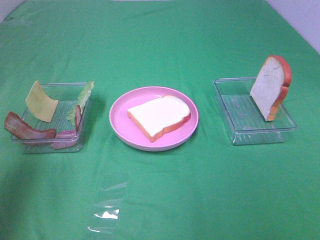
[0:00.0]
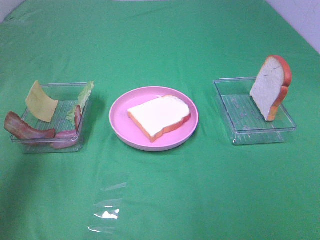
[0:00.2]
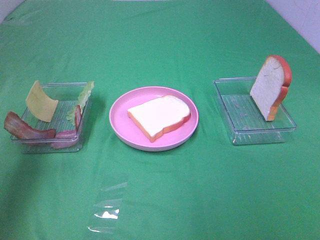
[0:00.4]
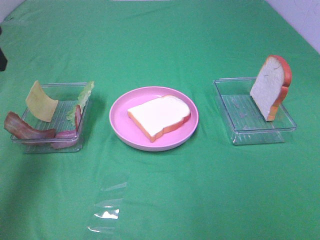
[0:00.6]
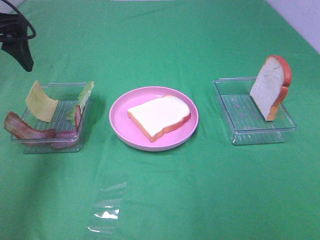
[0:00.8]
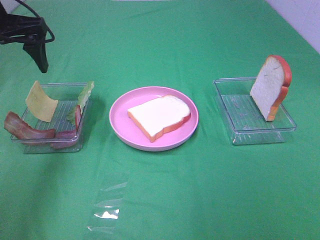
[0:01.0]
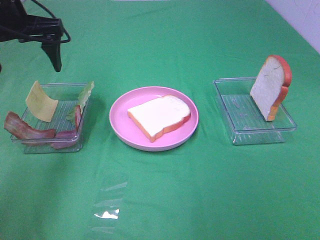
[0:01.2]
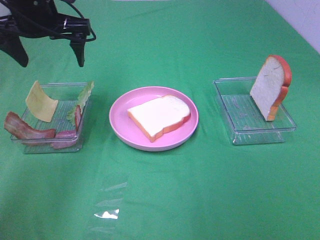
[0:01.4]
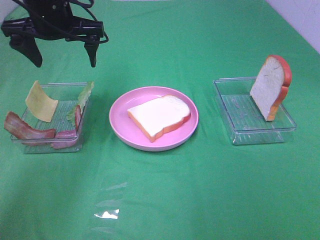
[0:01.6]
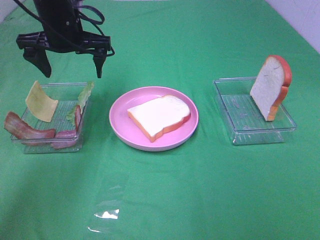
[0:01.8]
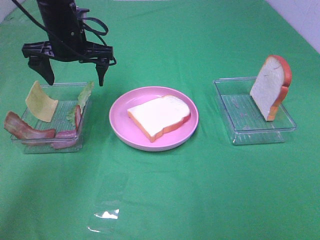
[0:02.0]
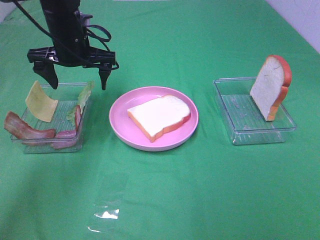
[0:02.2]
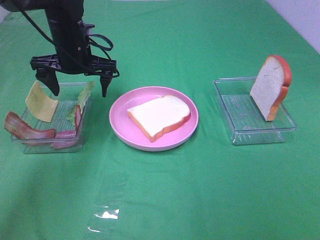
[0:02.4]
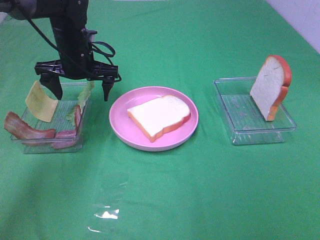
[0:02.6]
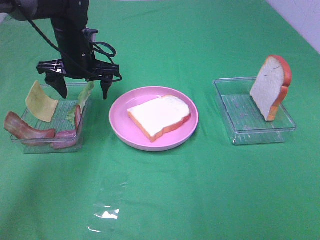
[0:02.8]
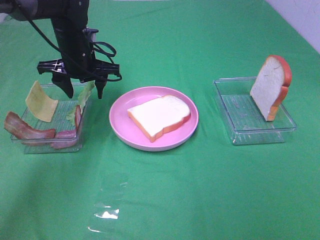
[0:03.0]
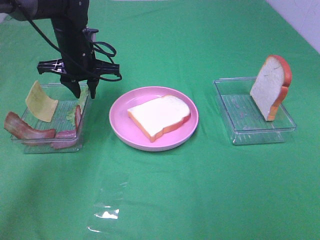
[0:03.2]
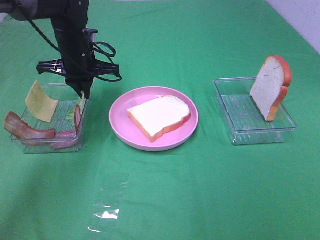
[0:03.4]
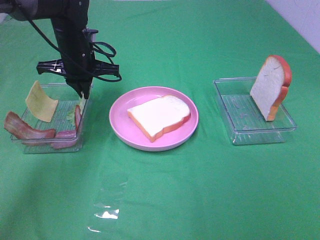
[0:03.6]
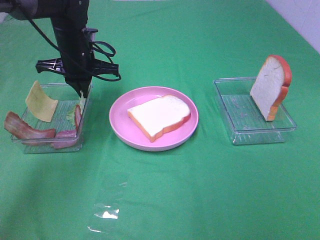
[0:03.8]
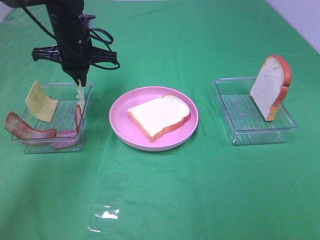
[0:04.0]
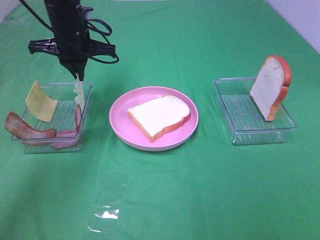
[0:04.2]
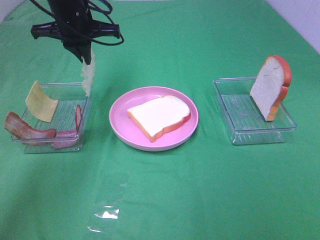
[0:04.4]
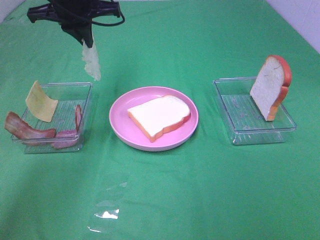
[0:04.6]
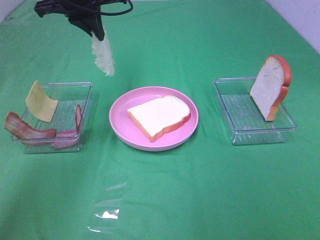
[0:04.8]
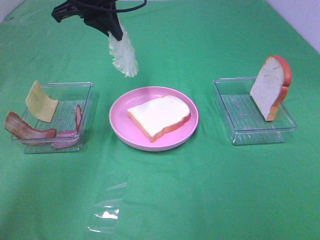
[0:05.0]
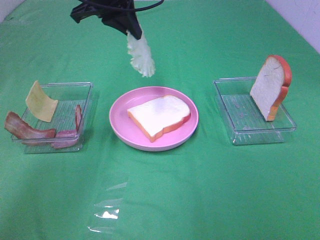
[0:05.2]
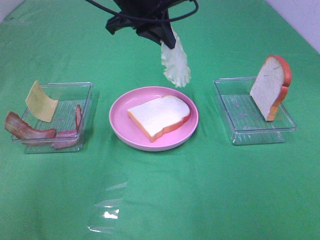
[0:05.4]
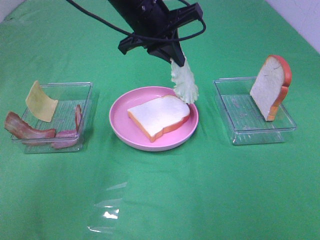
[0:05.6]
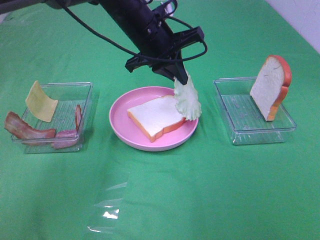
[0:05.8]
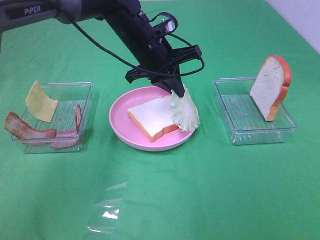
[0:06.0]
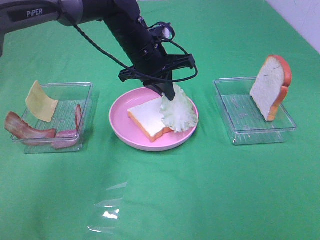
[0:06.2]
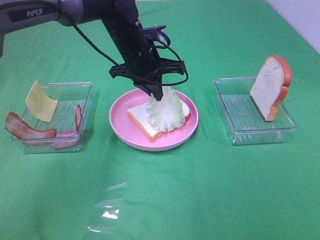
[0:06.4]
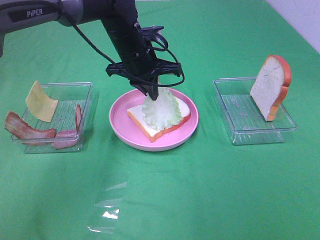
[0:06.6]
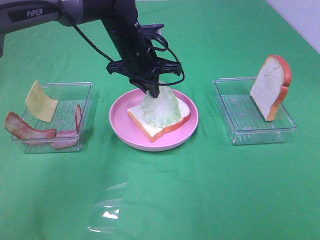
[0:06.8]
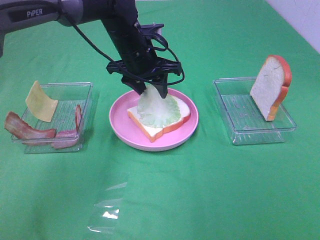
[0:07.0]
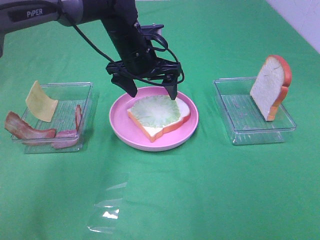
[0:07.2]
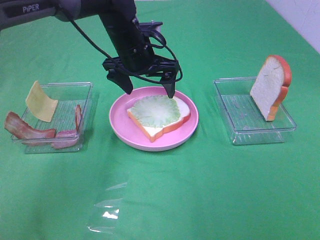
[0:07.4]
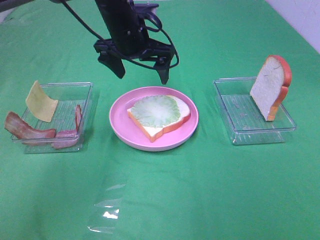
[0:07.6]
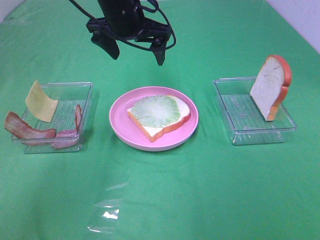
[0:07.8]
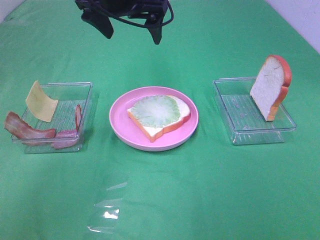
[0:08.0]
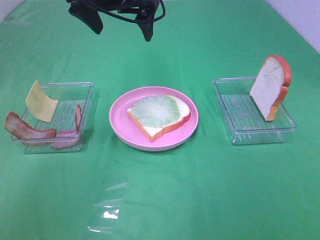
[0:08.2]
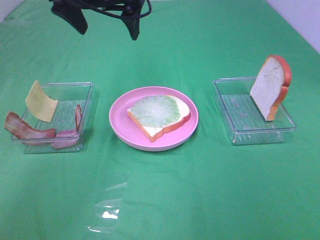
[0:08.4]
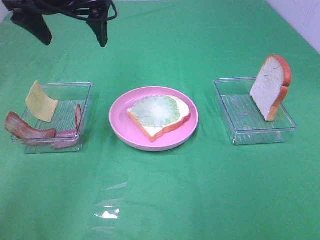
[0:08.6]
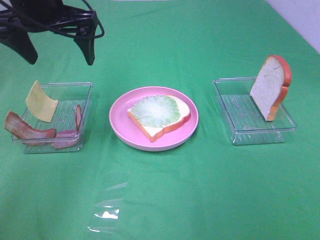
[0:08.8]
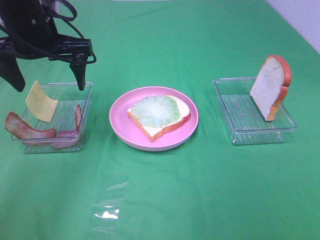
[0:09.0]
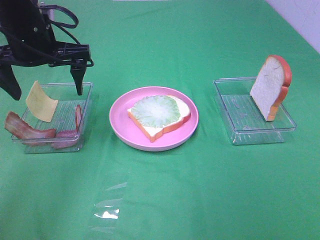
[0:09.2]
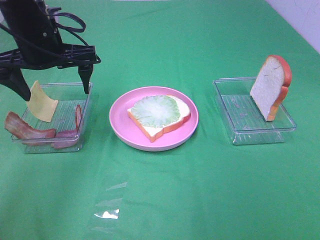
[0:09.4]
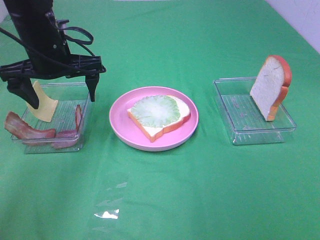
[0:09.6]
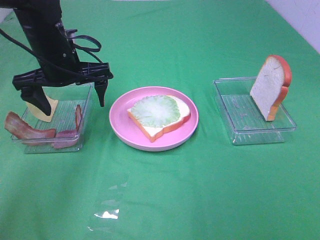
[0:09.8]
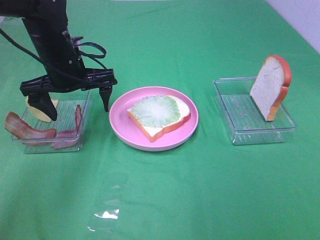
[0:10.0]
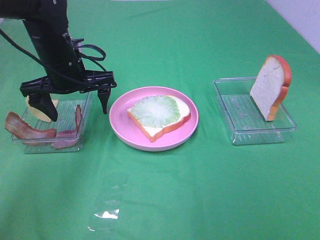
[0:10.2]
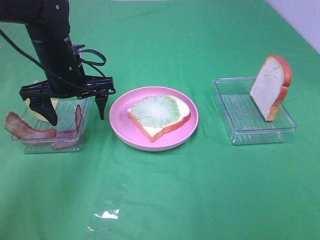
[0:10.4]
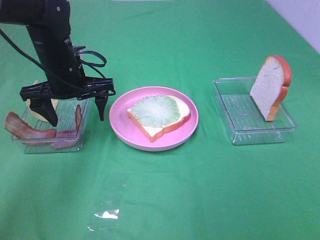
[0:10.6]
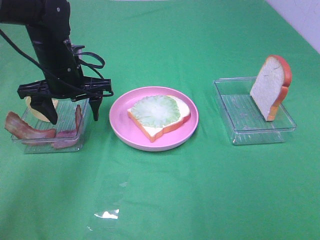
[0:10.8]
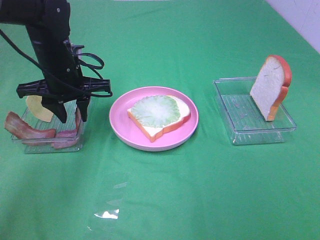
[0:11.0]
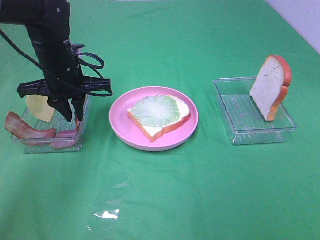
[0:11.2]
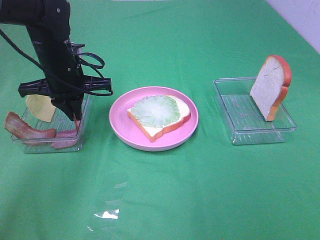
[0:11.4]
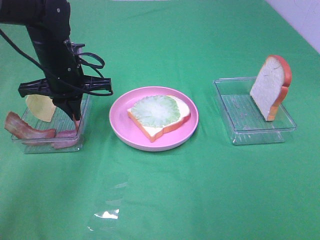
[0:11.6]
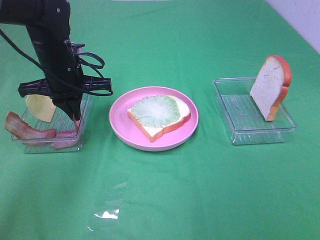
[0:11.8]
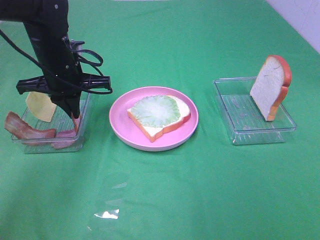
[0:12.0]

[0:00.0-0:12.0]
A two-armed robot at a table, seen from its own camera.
Task of the whole recording: Make sandwiches.
Step, 0.0 to 3.4 s: Left hand:grab the lettuce slice.
Step, 3.6 to 7.0 s: Left hand:place the lettuce slice on the bread slice.
Step, 7.2 to 11.4 s: Left hand:grab the bacon.
0.0 to 1.6 s: The left gripper shifts approximately 25 cm forward and to the right.
1.6 to 3.0 s: The left gripper moves downward, about 10 cm, and closes its fingers.
3.0 to 4.4 s: The left gripper travels upward by some 10 cm, and closes its fingers.
4.4 to 6.0 s: The left gripper shifts some 15 cm to the right and downward.
6.0 to 7.6 s: The left gripper changes place by some 5 cm, and opens up.
7.6 to 9.0 s: The left gripper moves to the left and backward, approximately 15 cm.
9.0 to 10.4 s: The left gripper shifts about 10 cm downward.
10.4 to 12.0 s: The left gripper closes up.

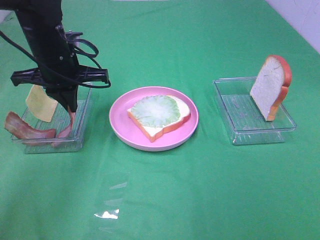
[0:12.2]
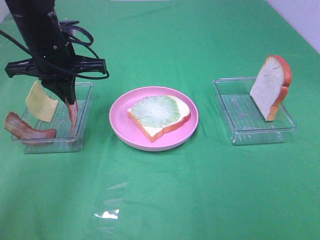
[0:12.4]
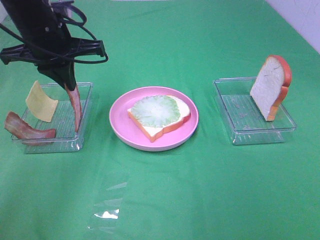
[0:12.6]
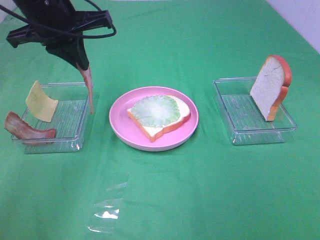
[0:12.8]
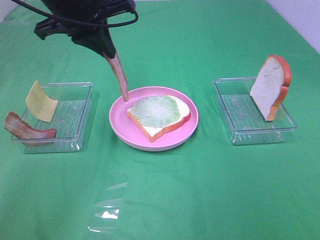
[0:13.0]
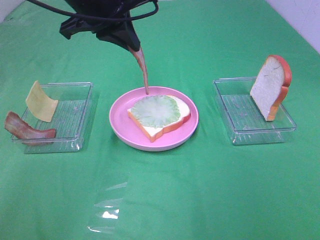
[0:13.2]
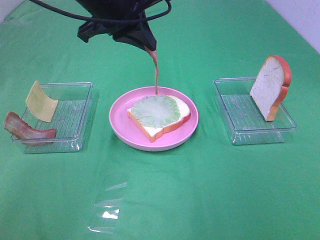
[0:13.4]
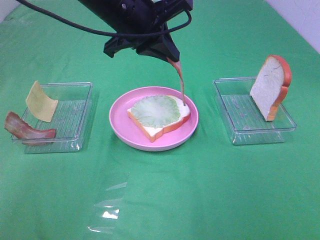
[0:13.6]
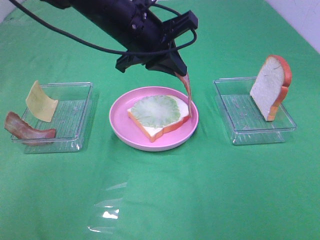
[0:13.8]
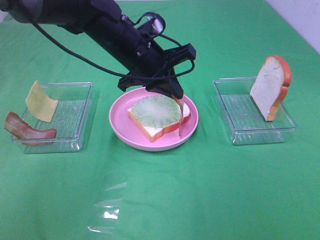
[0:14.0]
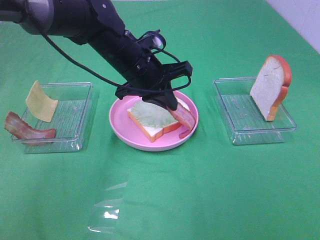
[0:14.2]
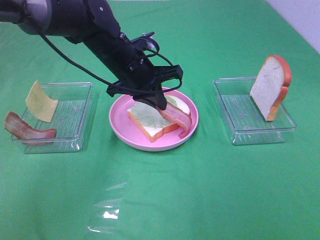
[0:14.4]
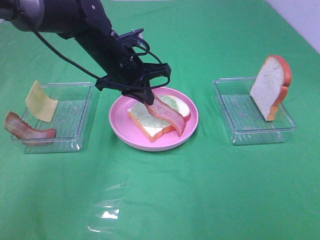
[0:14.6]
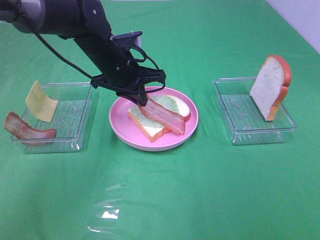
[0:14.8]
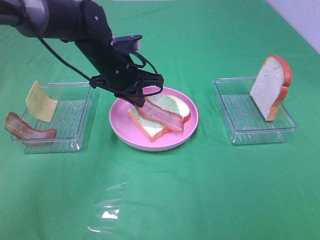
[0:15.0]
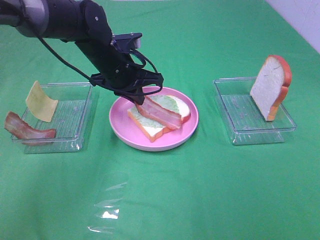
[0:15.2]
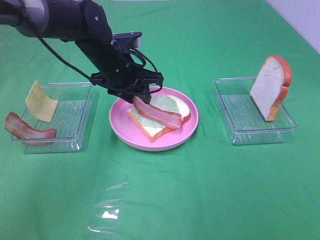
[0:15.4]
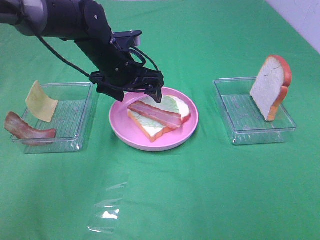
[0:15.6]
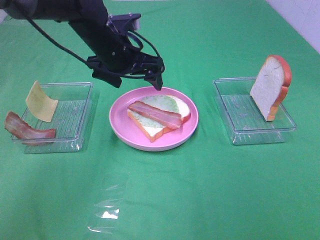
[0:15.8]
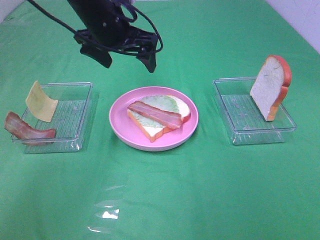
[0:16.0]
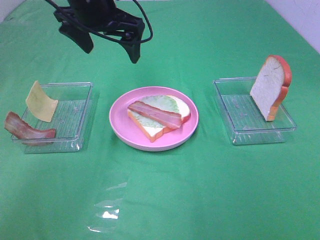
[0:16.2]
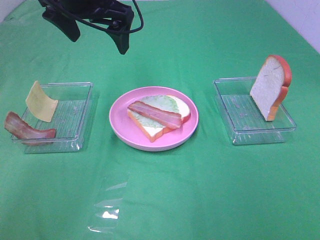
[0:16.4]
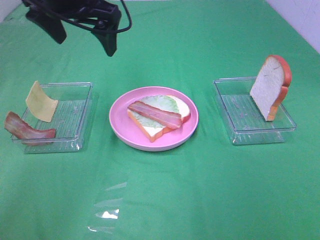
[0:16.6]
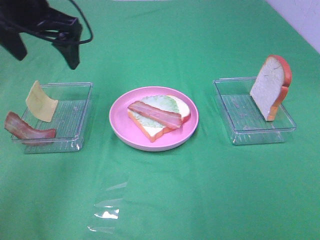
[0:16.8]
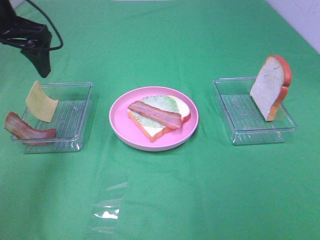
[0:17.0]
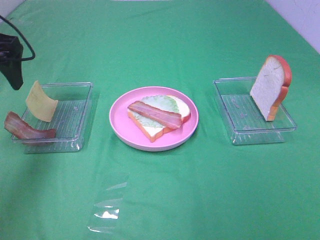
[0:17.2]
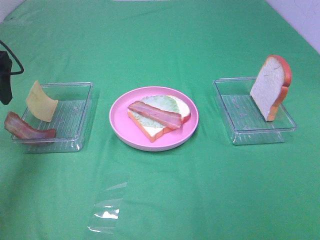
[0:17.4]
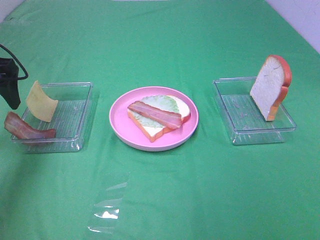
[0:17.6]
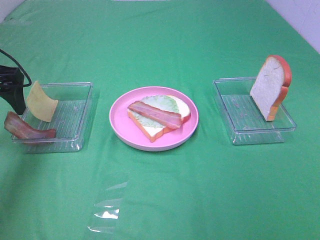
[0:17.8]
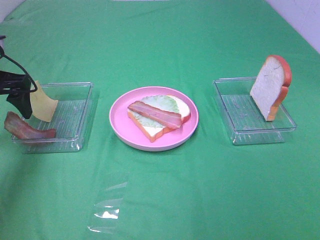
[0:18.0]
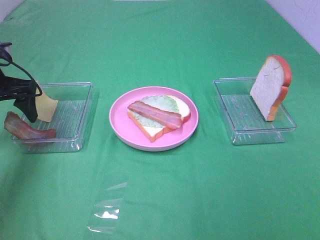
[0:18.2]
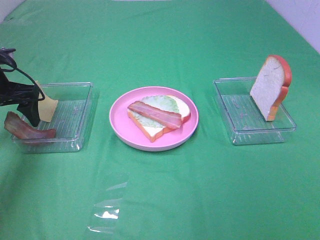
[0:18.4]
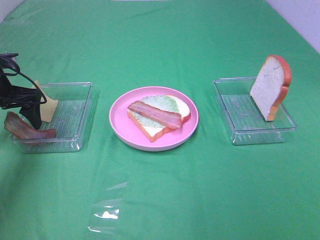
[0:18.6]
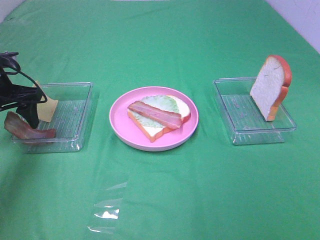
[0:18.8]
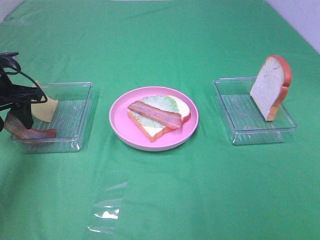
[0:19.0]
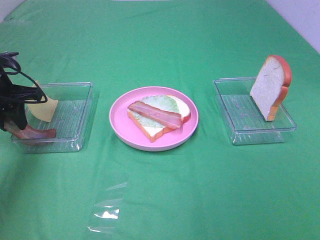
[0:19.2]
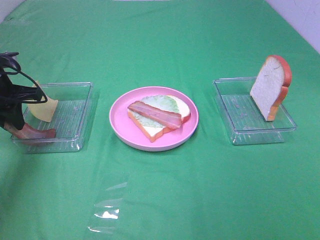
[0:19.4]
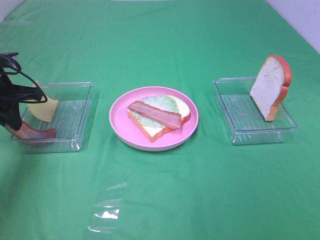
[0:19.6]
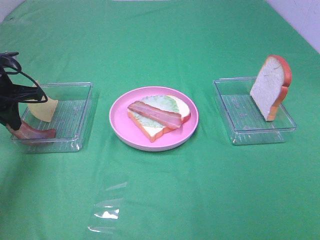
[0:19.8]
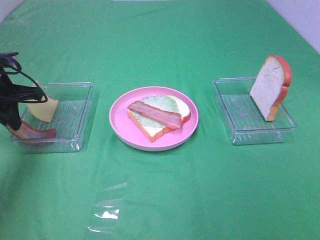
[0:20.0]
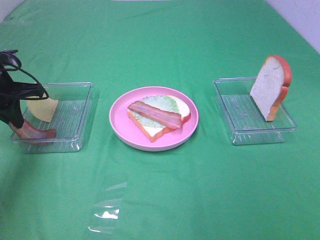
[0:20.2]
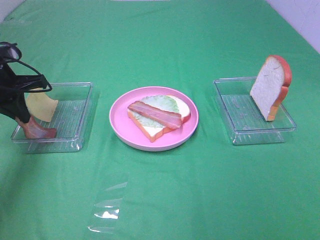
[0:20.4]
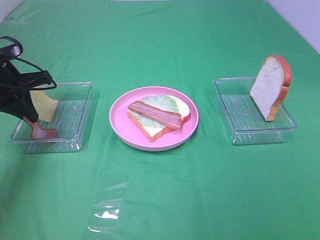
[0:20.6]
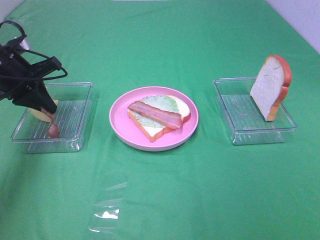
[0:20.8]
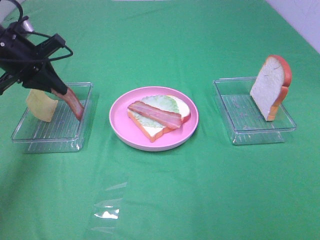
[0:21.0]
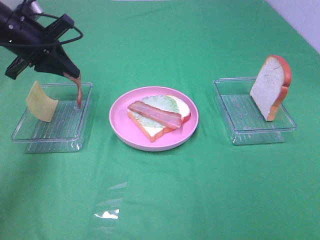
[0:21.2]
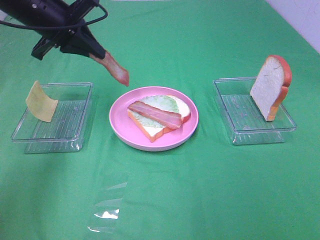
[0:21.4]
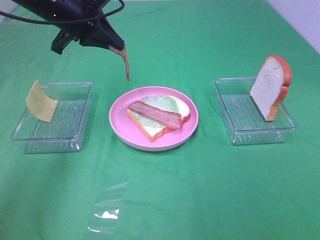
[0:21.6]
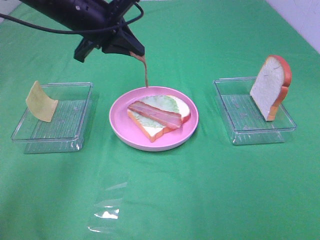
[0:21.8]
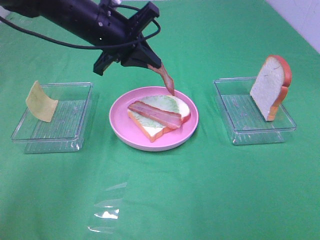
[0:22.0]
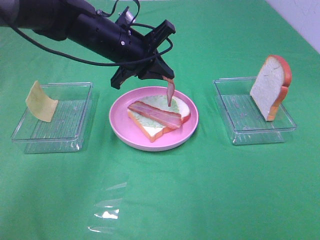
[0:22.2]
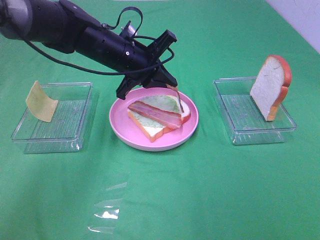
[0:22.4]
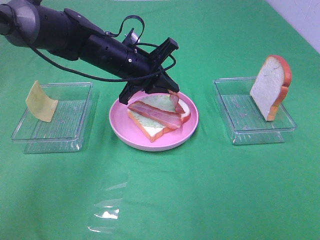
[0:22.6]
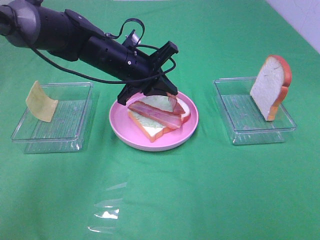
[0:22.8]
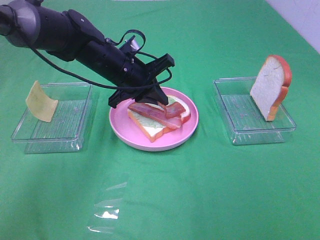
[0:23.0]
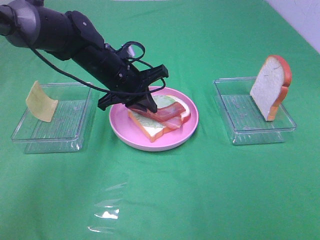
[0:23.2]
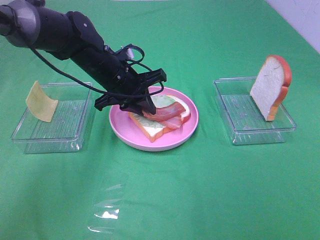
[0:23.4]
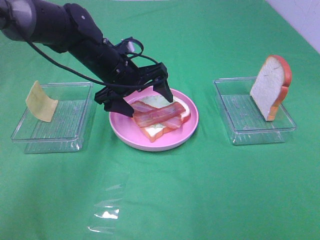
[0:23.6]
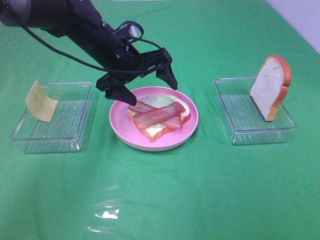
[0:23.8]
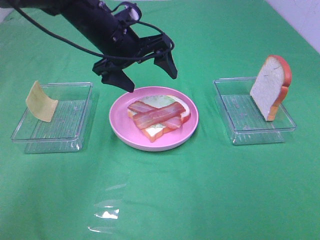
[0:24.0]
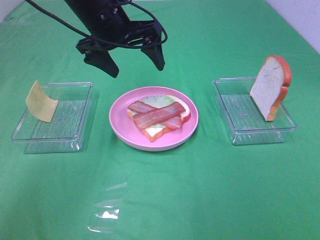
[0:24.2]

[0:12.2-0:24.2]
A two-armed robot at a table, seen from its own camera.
Task of the whole recording: Make sandwiches.
Step, 12.2 to 15.6 s: Left hand:place bacon on lettuce slice.
Step, 15.8 to 19.6 s: Left hand:grab the bacon.
Step, 19.8 to 23.8 s: Left hand:place bacon on bacon.
12.2 to 13.8 s: The left gripper travels to the right by roughly 10 cm.
13.8 to 15.2 s: The left gripper is displaced downward by roughly 10 cm.
15.2 to 16.6 s: The left gripper heads upward, covering about 15 cm, and opens.
16.6 to 18.2 s: The left gripper heads to the left and downward, covering roughly 20 cm.
18.2 to 19.8 s: The left gripper closes its fingers.
19.8 to 21.2 s: The left gripper shifts approximately 10 cm upward and to the right.
21.2 to 22.6 s: The left gripper moves to the right and downward, some 20 cm.
22.6 to 24.2 s: The left gripper moves upward, roughly 10 cm, and opens up.
